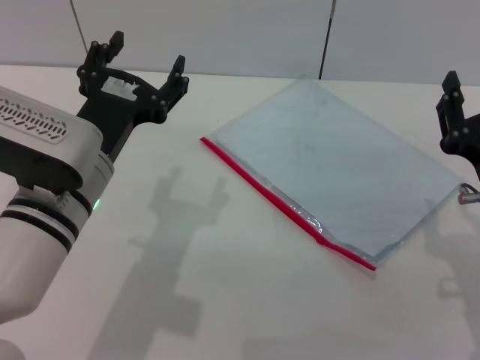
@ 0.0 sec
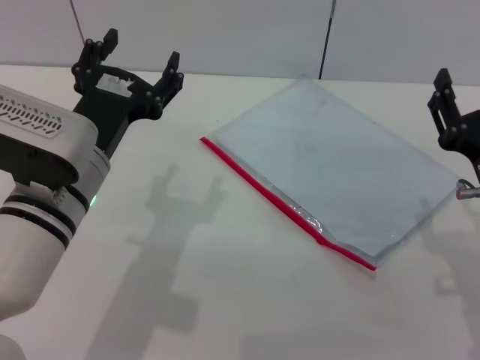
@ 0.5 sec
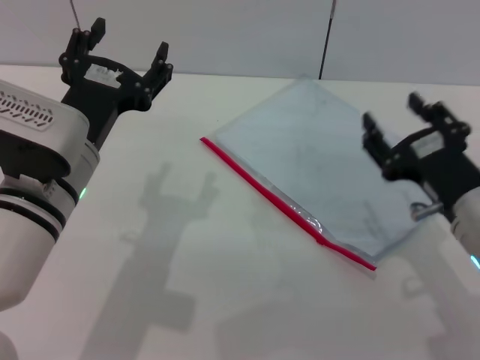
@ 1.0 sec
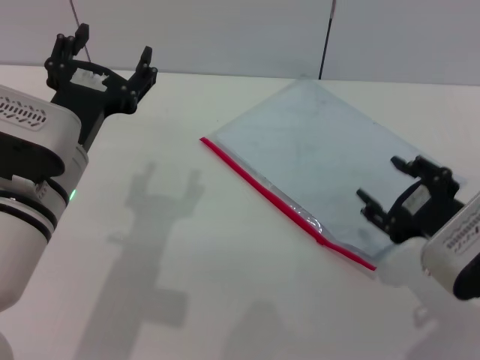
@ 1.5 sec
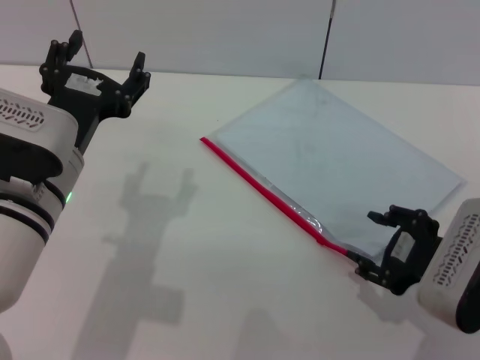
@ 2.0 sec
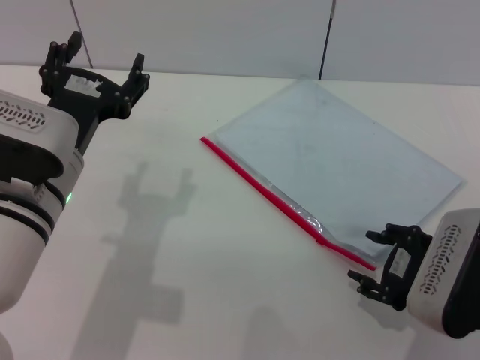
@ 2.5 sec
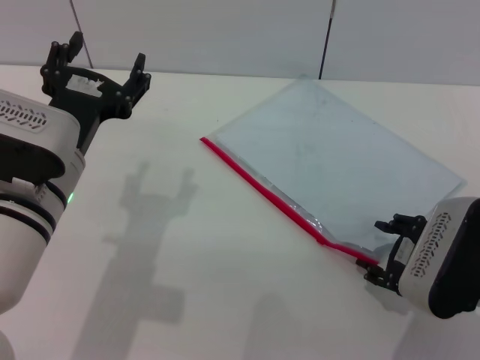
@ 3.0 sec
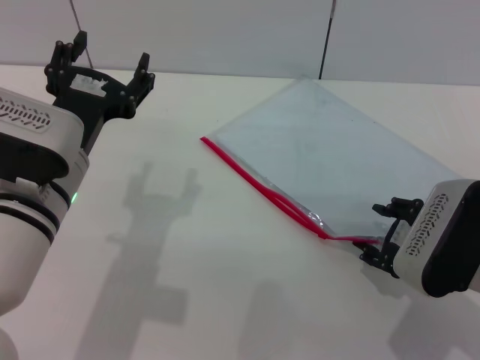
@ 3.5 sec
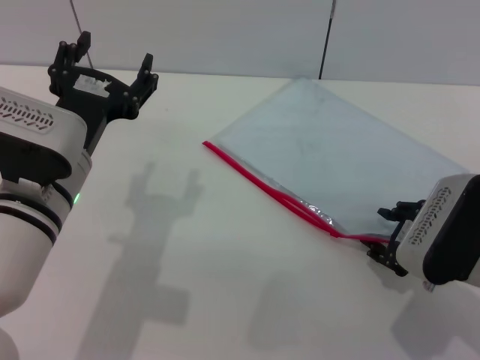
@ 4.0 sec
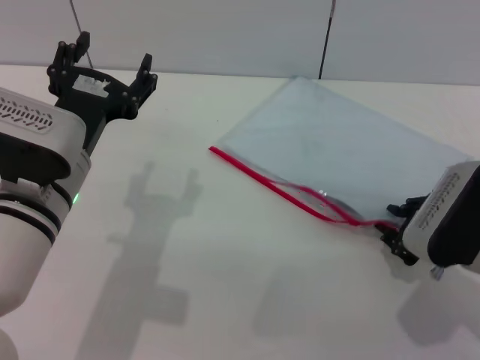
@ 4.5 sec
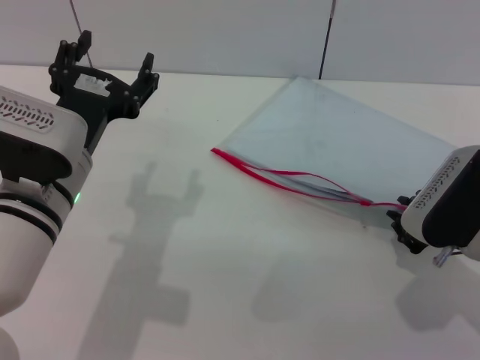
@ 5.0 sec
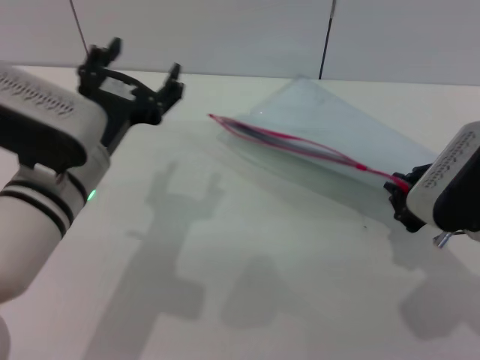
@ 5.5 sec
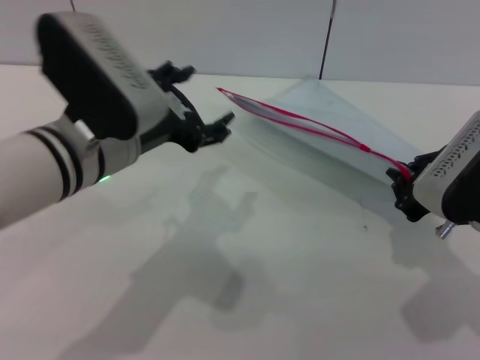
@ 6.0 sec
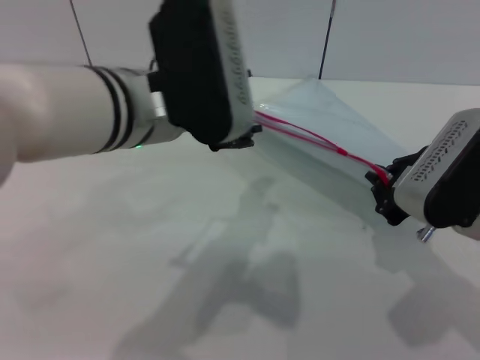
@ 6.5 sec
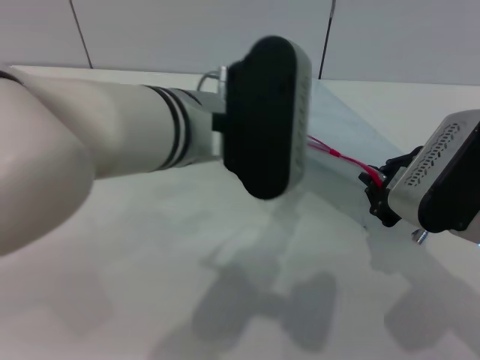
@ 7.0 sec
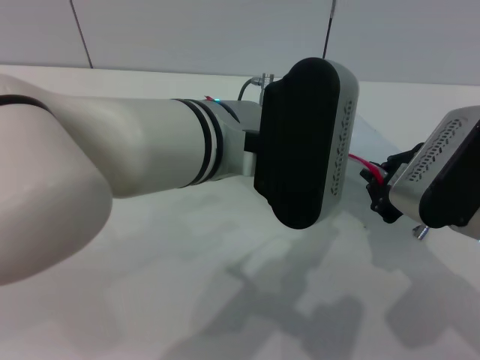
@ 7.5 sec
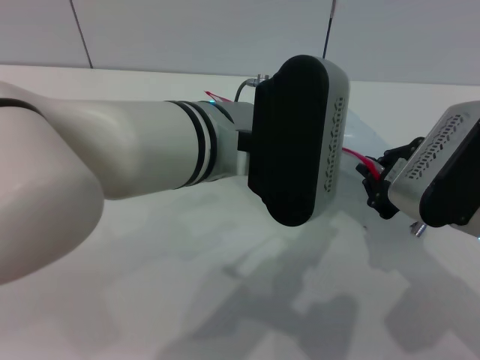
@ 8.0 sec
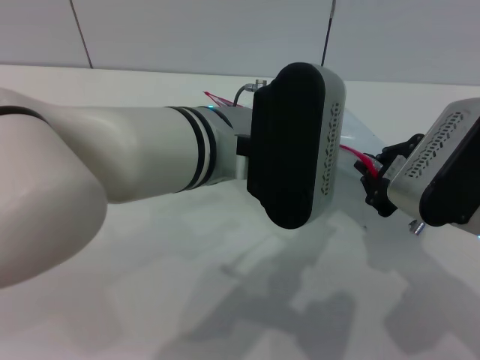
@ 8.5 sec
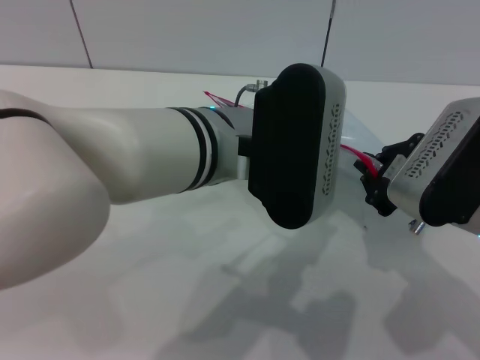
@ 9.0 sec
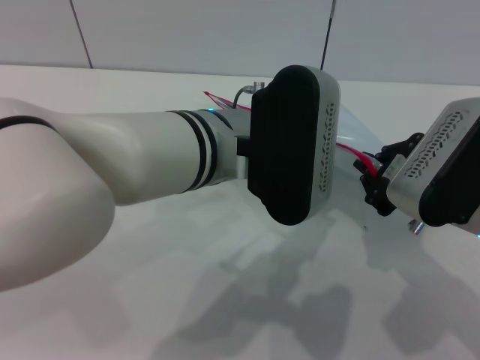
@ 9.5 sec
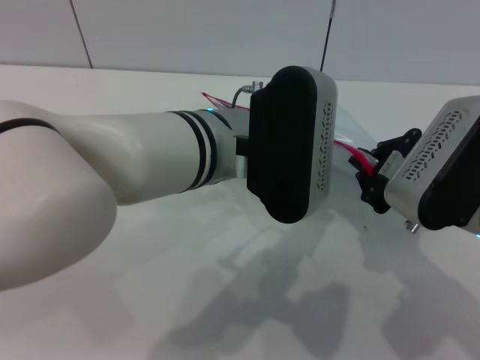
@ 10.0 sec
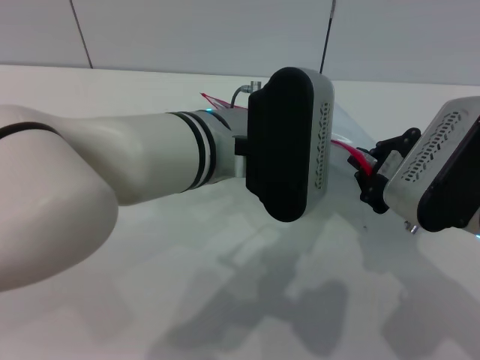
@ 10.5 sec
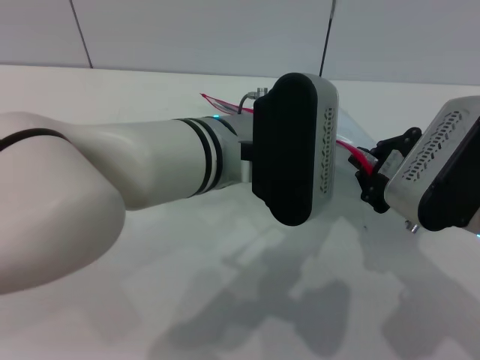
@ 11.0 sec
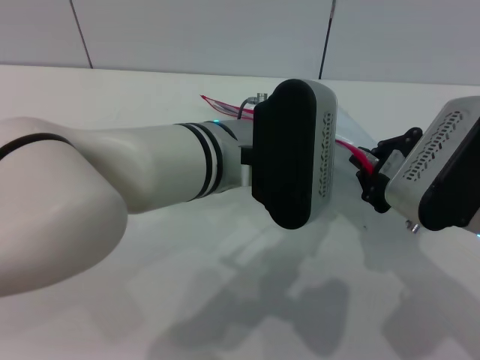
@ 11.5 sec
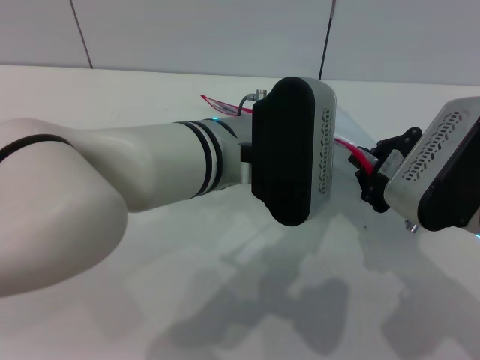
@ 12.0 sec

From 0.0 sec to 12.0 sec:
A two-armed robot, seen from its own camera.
Step, from 0.0 sec to 5.5 sec: Pick up the transparent plastic bag with the right gripper.
From 2.0 sec to 4.0 sec: The grippers stay close to where they were, moving slightly.
From 4.0 sec to 6.0 sec: The left gripper changes place by roughly 5 cm, while the right gripper shifts some 5 cm upward, and closes.
From 6.0 sec to 8.0 sec: The left gripper travels to the right by about 10 cm.
From 8.0 sec to 12.0 sec: The grippers stay close to where they were, moving slightly.

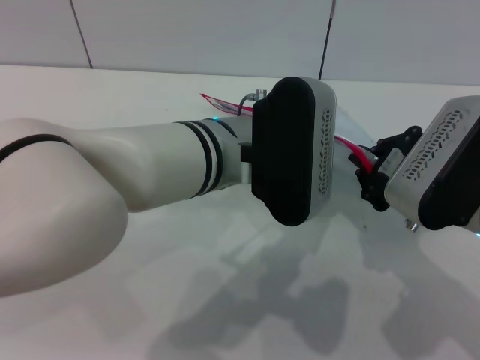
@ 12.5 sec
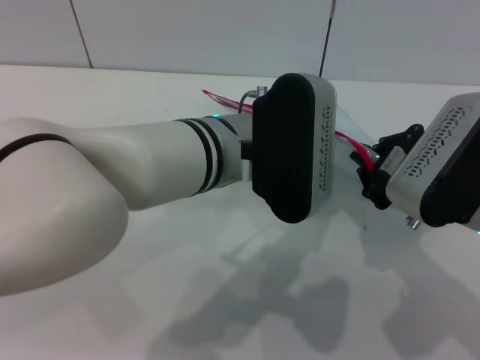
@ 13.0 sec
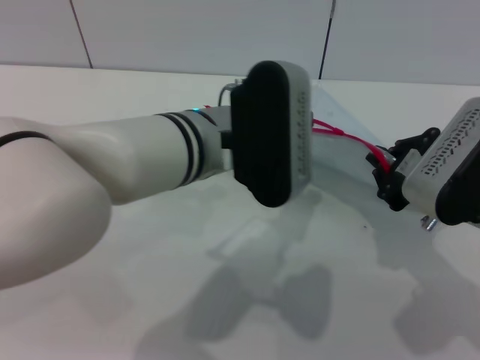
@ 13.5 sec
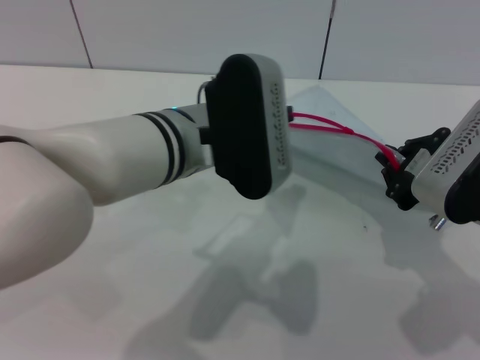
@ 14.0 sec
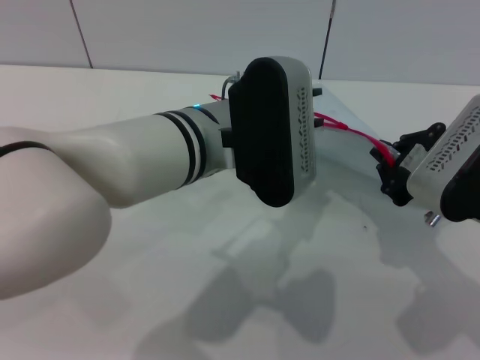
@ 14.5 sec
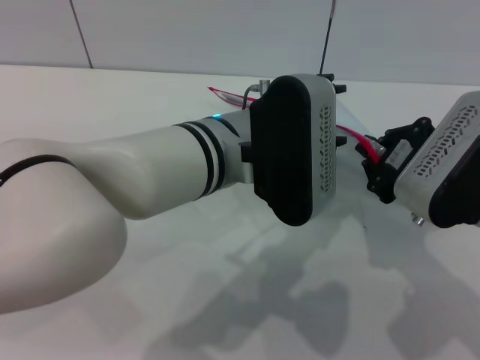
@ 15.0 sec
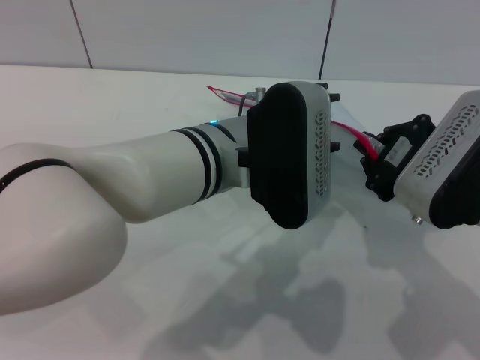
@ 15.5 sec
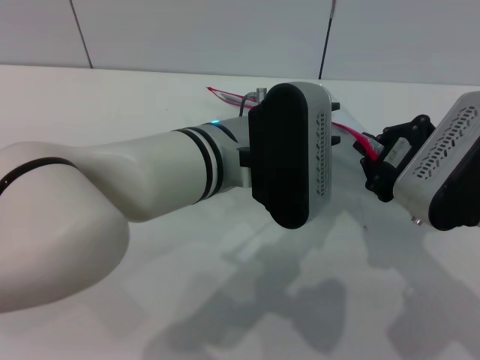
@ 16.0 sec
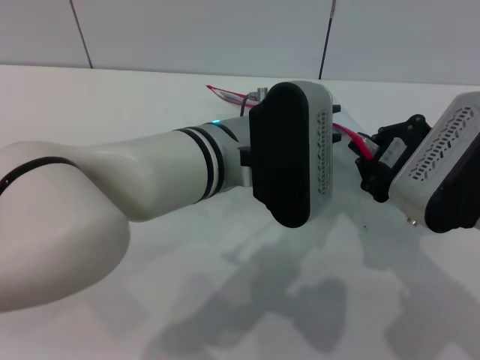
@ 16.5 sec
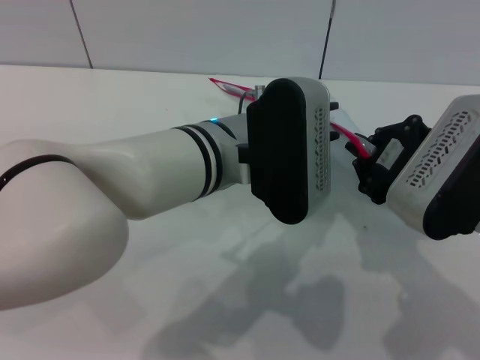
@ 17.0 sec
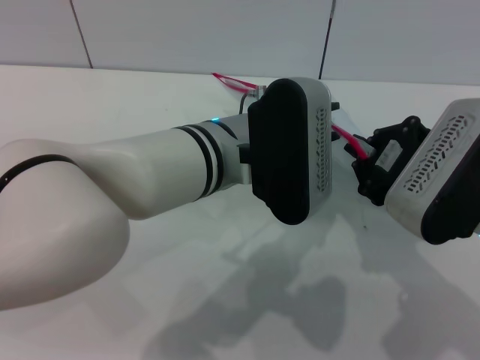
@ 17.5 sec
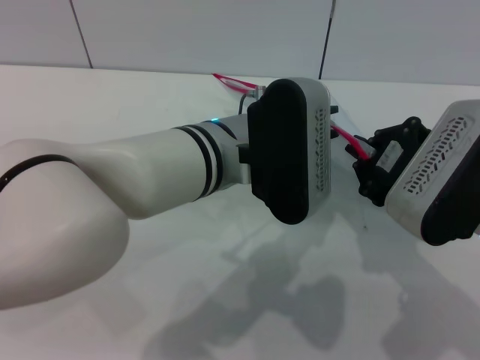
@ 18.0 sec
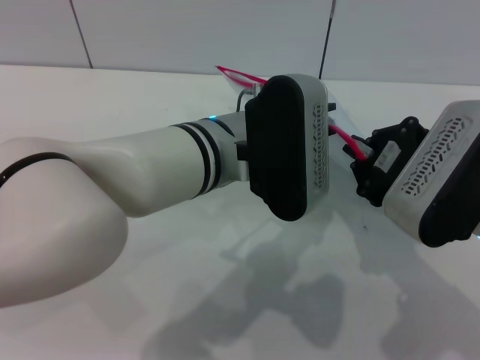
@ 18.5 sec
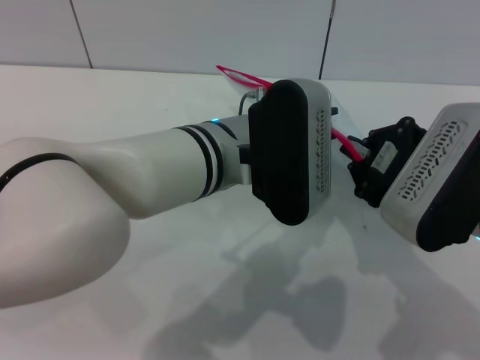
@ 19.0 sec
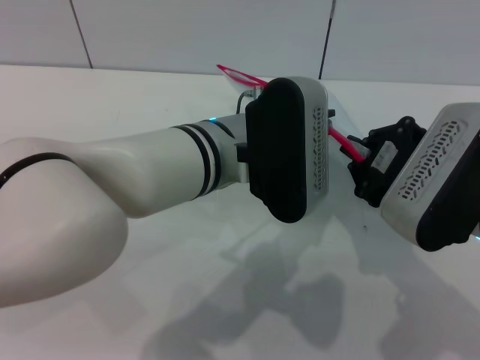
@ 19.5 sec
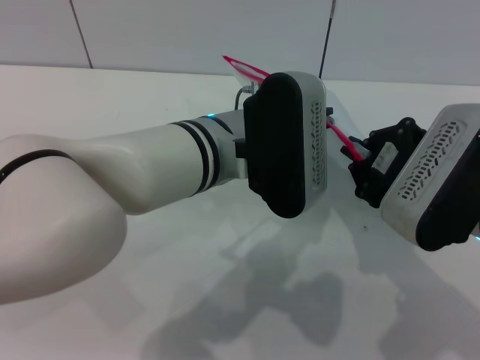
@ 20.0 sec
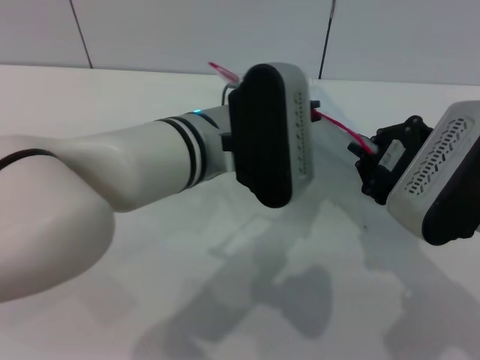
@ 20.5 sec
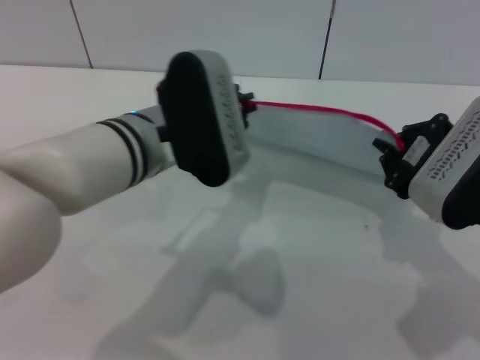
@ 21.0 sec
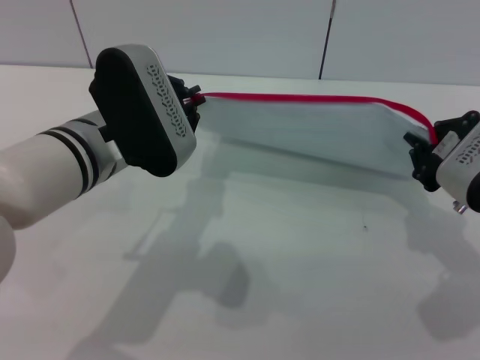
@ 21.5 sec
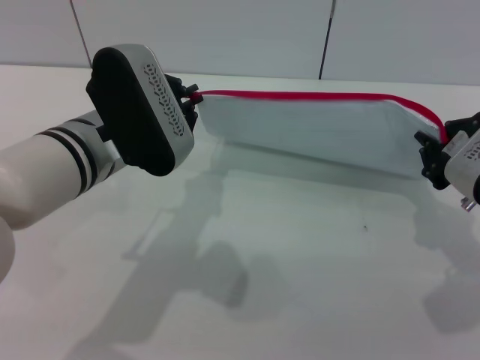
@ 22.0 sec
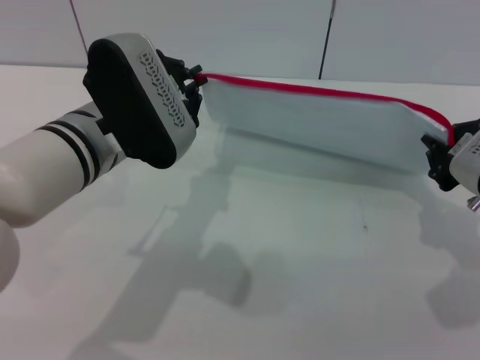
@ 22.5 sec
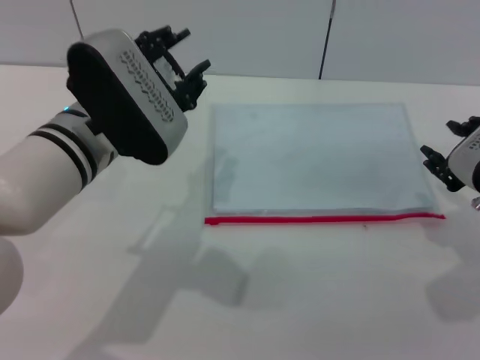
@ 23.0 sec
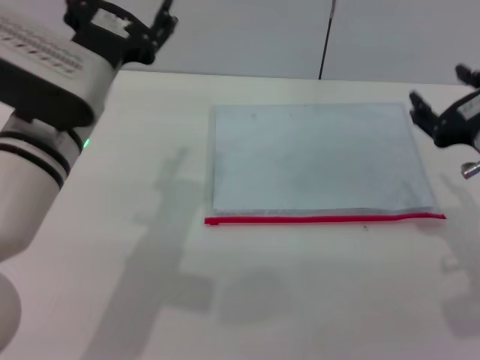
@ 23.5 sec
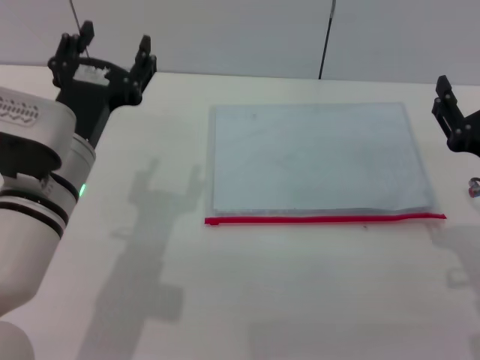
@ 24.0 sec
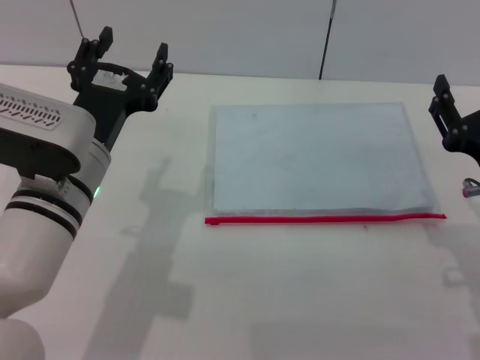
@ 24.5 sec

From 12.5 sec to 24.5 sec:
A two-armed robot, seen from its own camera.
Step, from 12.5 sec to 22.5 sec: Pulling up the zipper on the transparent plastic bag with the left gripper to close it.
Step, from 23.0 sec to 23.5 sec: Place the transparent plastic bag.
From 12.5 sec to 14.5 sec: There are only small adjustments of the grippers.
From 16.5 sec to 18.5 sec: Neither gripper changes place.
From 18.5 sec to 20.5 sec: Neither gripper changes place.
From 20.5 sec to 22.5 sec: The left gripper heads to the left, covering approximately 10 cm; the right gripper is displaced to the right by roughly 5 cm.
From 22.5 sec to 24.5 sec: The right gripper shifts by roughly 5 cm, and opens its fingers. Meanwhile the left gripper changes place by approximately 5 cm, and opens.
